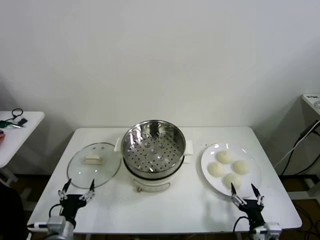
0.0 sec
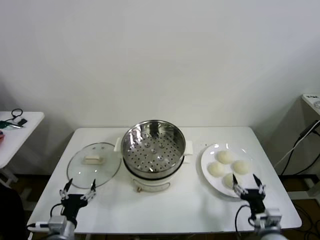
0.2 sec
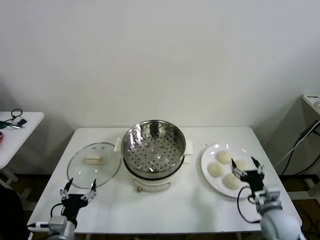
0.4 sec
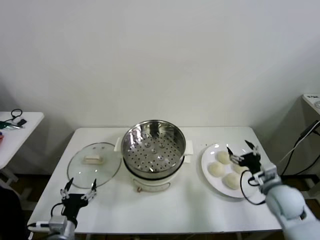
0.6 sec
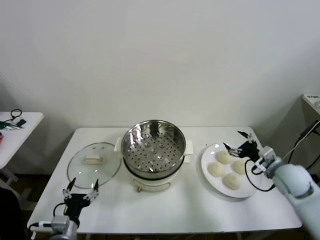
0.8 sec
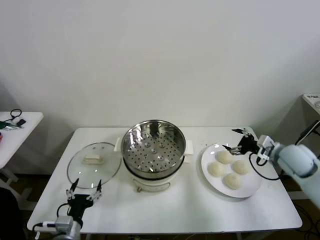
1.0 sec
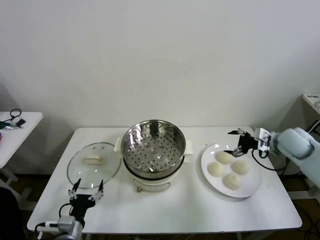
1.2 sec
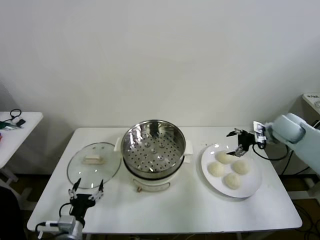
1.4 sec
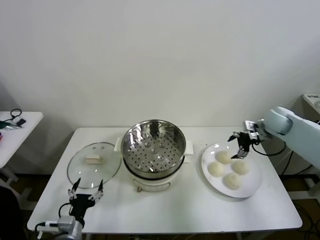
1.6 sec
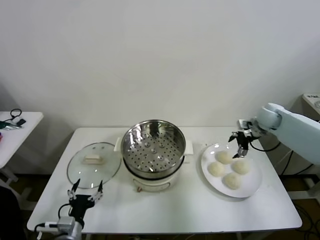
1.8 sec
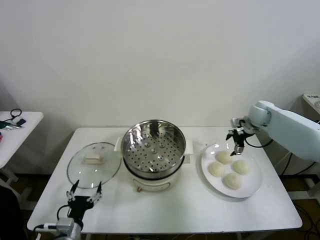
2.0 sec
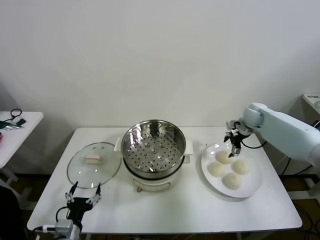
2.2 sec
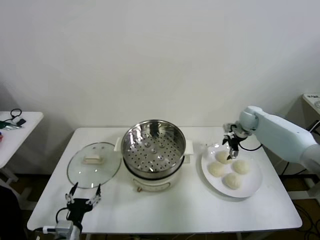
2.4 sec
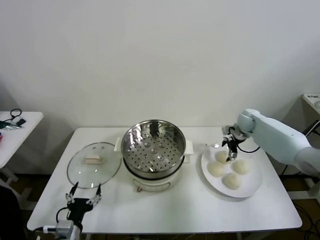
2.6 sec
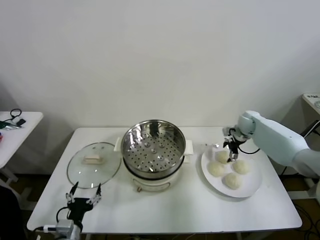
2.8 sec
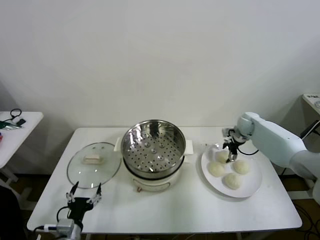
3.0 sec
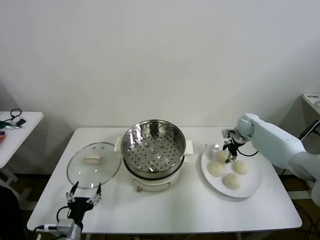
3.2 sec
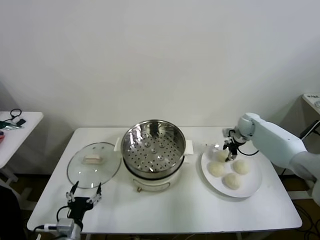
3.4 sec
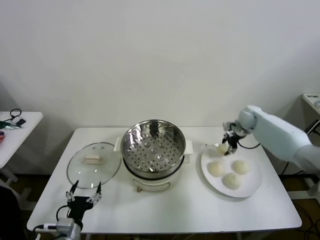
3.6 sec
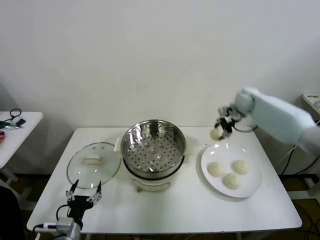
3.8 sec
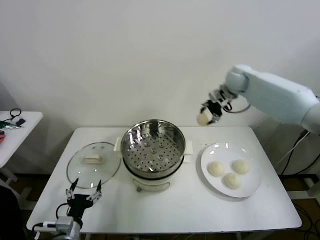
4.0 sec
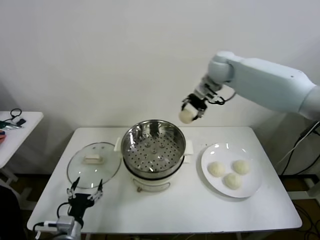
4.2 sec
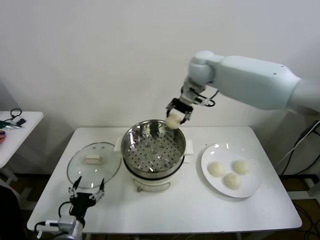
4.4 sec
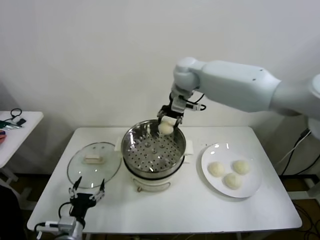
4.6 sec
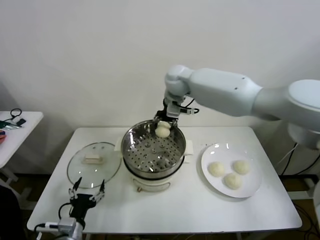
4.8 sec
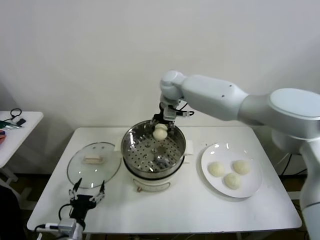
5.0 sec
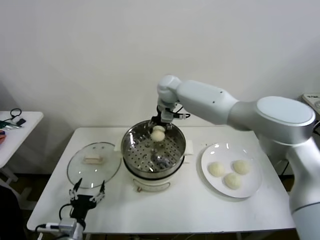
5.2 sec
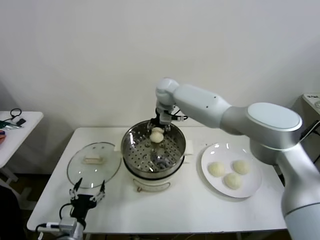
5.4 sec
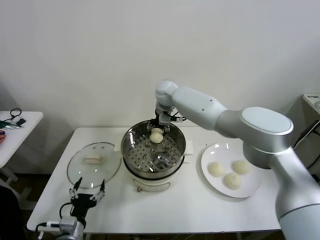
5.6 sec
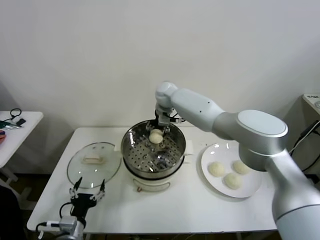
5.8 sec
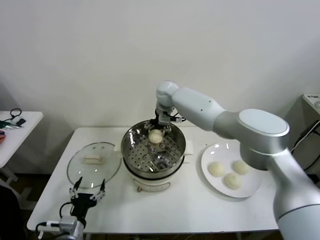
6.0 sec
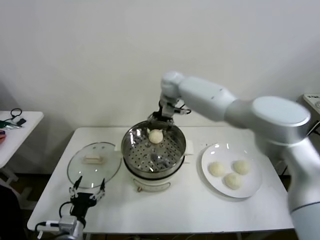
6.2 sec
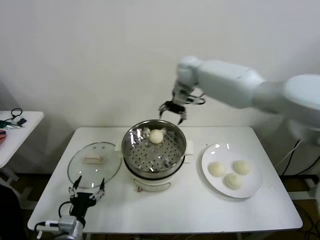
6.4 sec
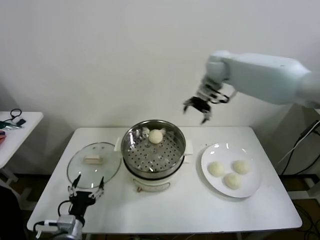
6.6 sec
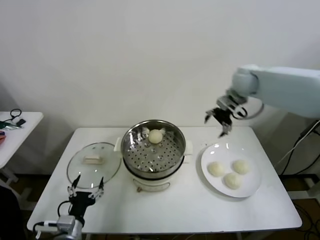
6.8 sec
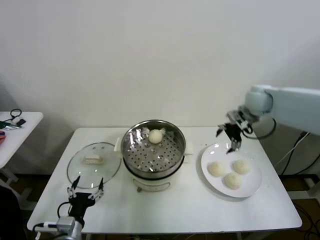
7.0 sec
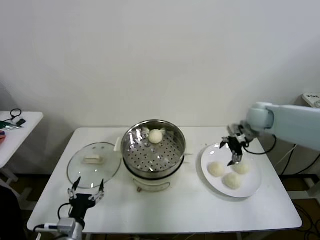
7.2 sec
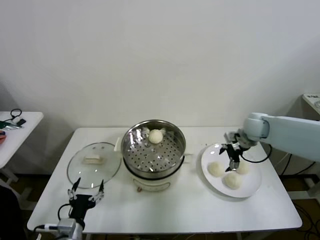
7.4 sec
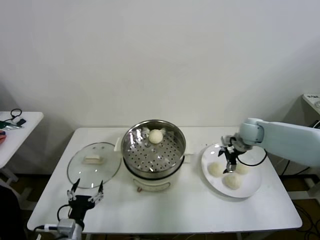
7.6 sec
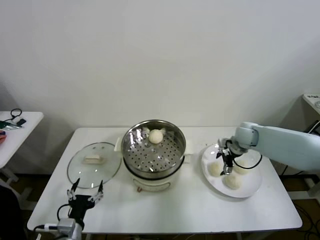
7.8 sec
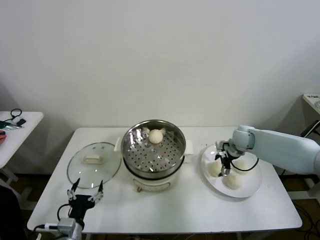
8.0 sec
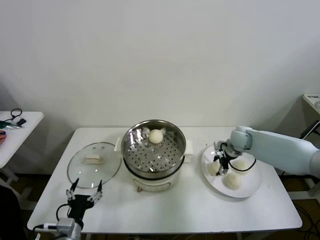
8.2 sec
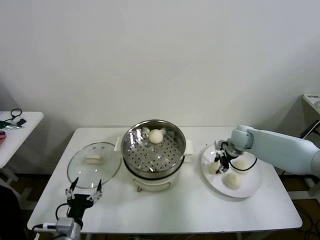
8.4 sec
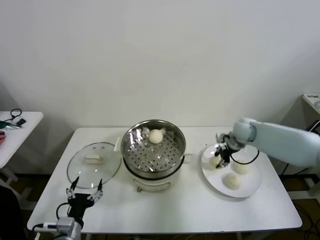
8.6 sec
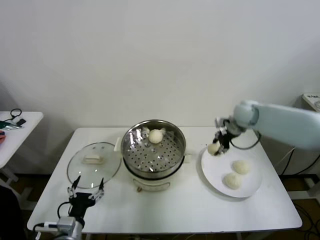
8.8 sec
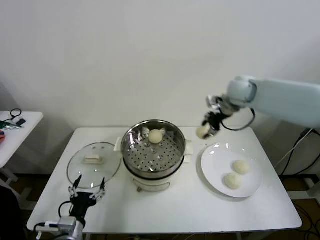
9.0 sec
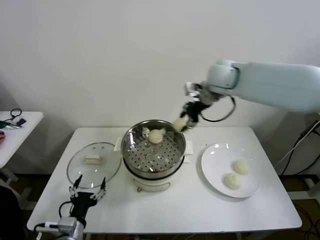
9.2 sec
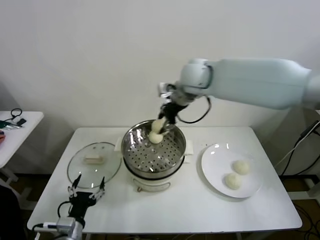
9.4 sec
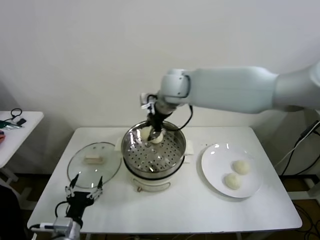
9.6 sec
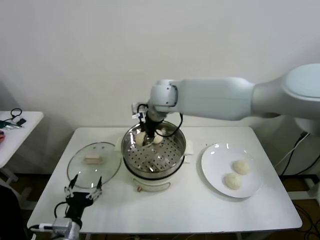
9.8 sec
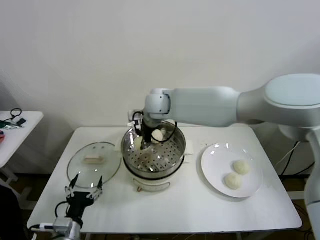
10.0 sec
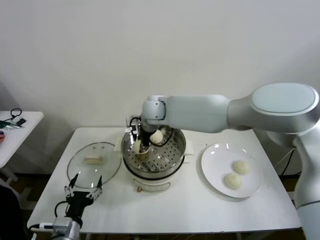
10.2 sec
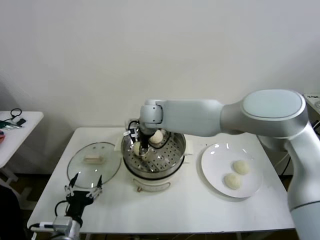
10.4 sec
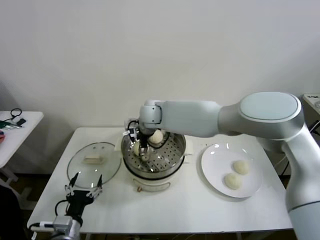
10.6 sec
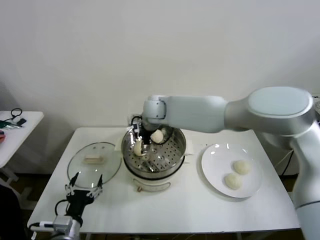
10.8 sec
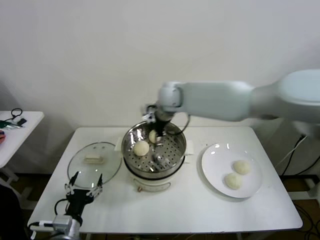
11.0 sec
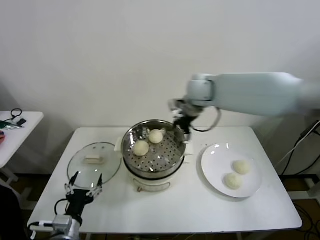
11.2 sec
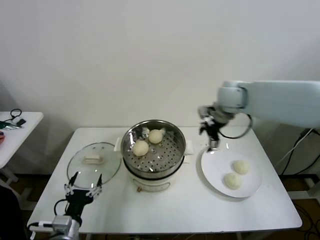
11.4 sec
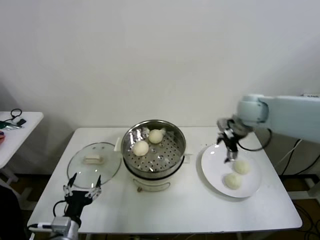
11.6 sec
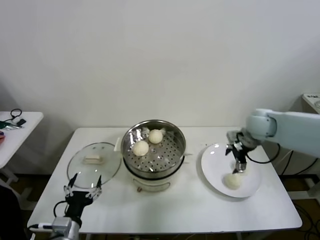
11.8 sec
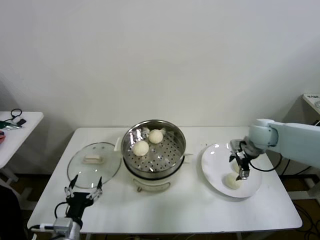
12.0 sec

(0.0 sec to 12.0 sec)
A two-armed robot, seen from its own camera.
Step, 0.0 sec - 3.2 sec: Grasp the baozi in the plate with right gripper.
Step, 3.4 sec - 5.8 sec: Place the baozi on the steamer with right gripper.
Step, 6.0 sec - 8.2 sec: Grasp the baozi in the plate with right gripper.
Step, 8.4 sec - 10.4 sec: Place the baozi on the steamer with right gripper.
1.6 sec - 3.0 sec: The right gripper goes approximately 10 cm downward and forward.
3.0 sec - 4.4 sec: The right gripper travels upward and to the left by roughly 35 cm, and closes up.
4.4 sec - 6.0 sec: The right gripper travels downward, to the left and forward by about 15 cm, and opens up.
6.0 sec - 7.6 sec: The right gripper is displaced to the right by about 30 cm.
7.6 sec - 9.0 sec: The right gripper is displaced upward and to the left by roughly 20 cm, and closes.
9.0 sec - 10.4 sec: The right gripper goes approximately 25 cm to the left.
10.4 sec - 12.0 sec: The right gripper shifts about 40 cm to the right, and opens.

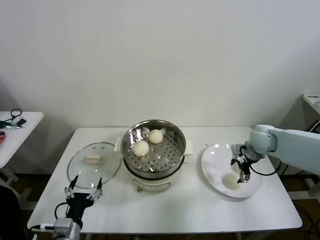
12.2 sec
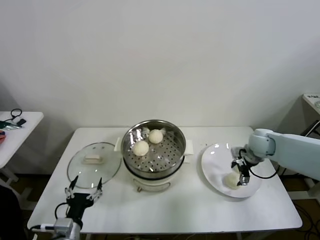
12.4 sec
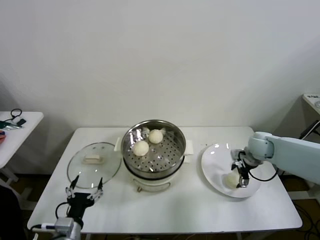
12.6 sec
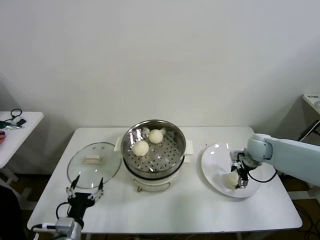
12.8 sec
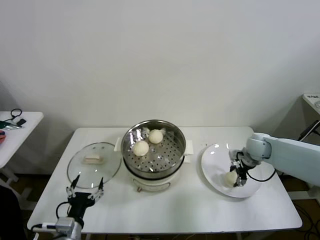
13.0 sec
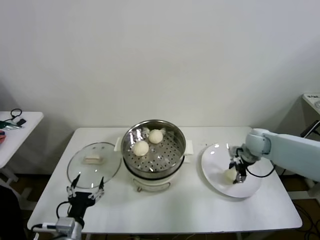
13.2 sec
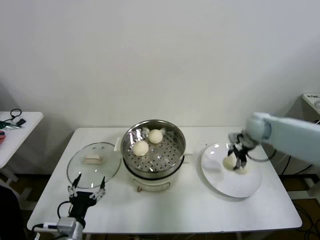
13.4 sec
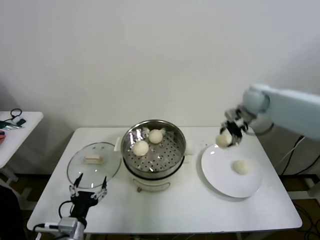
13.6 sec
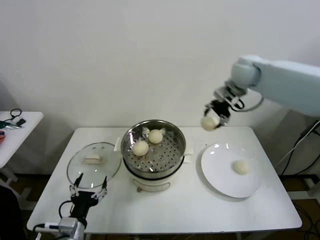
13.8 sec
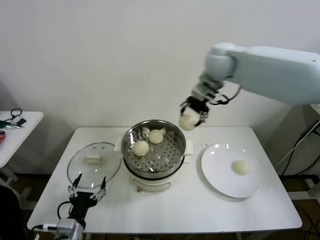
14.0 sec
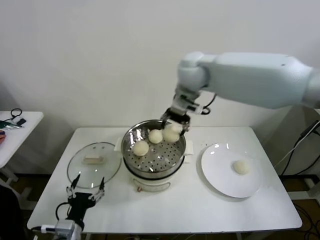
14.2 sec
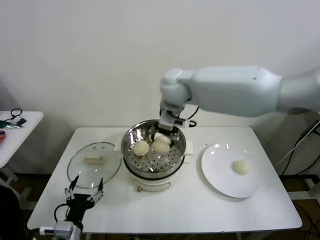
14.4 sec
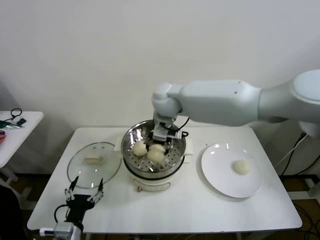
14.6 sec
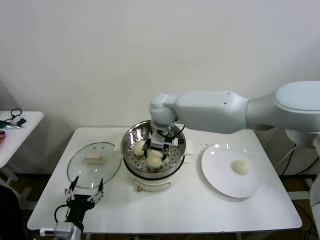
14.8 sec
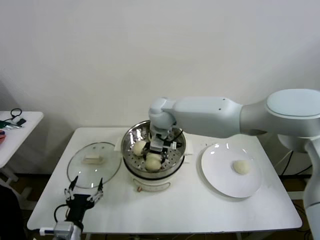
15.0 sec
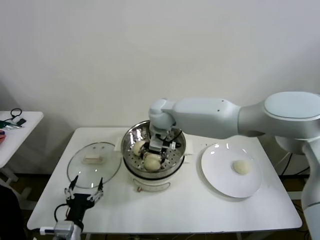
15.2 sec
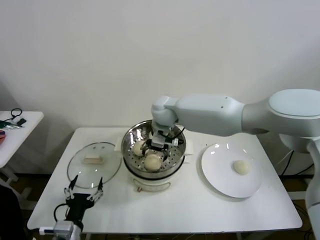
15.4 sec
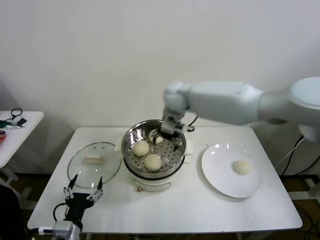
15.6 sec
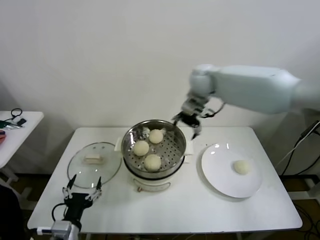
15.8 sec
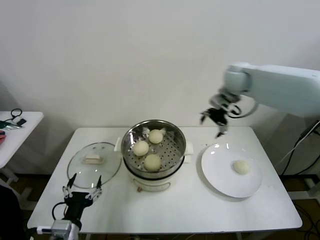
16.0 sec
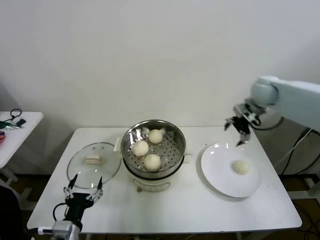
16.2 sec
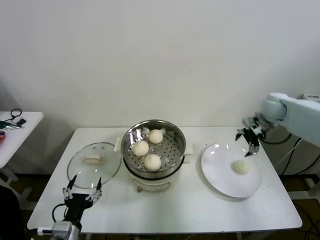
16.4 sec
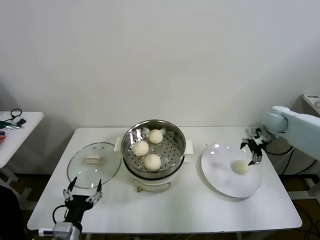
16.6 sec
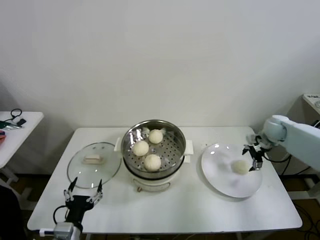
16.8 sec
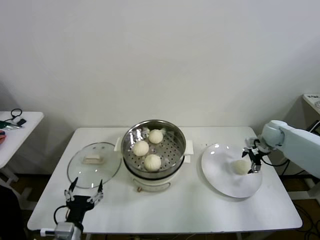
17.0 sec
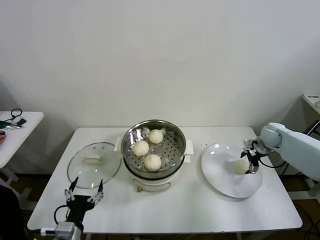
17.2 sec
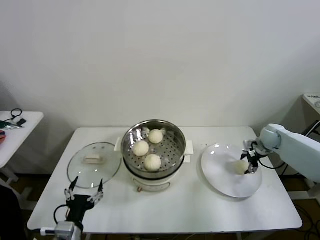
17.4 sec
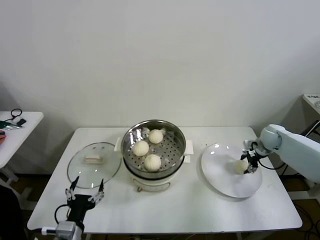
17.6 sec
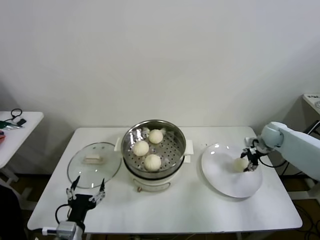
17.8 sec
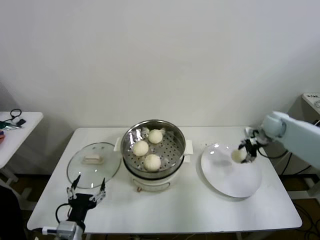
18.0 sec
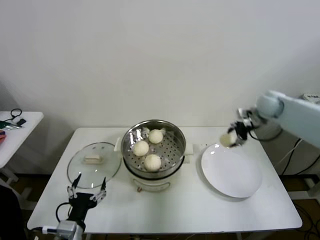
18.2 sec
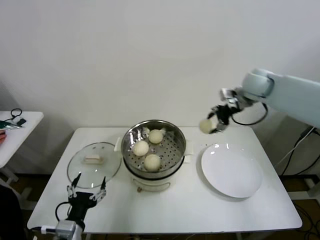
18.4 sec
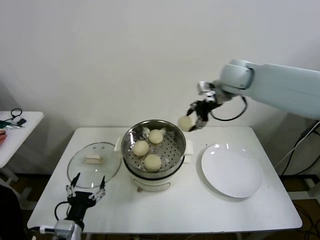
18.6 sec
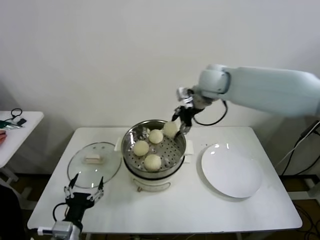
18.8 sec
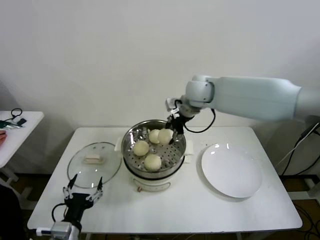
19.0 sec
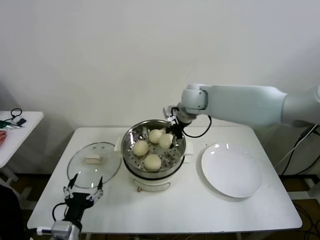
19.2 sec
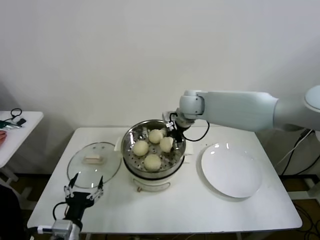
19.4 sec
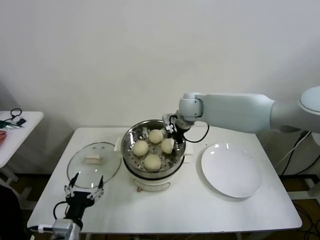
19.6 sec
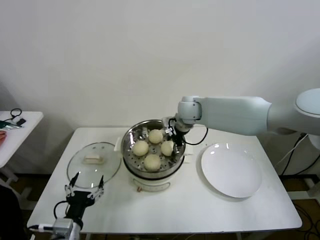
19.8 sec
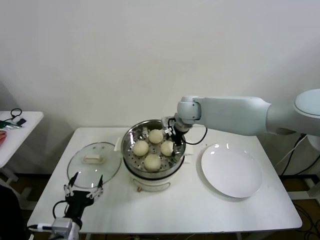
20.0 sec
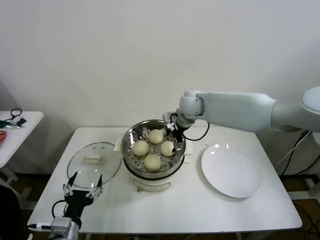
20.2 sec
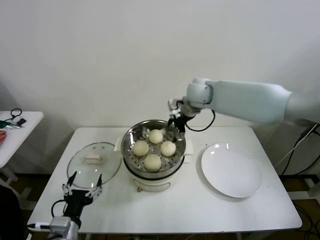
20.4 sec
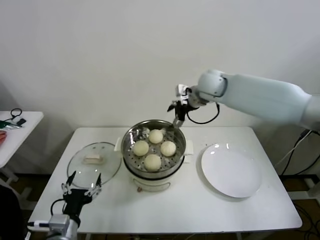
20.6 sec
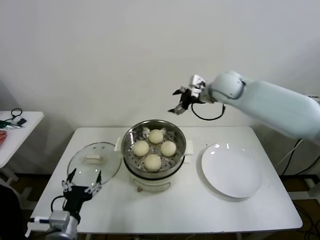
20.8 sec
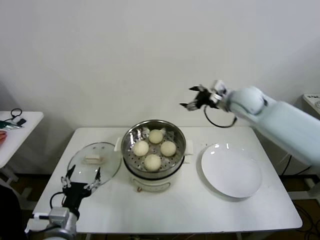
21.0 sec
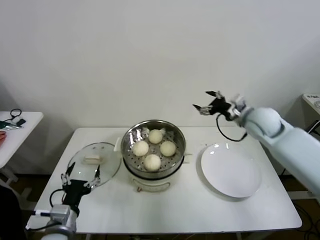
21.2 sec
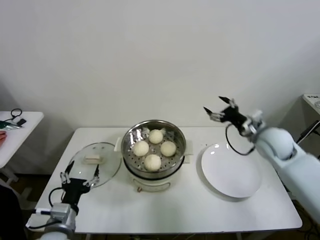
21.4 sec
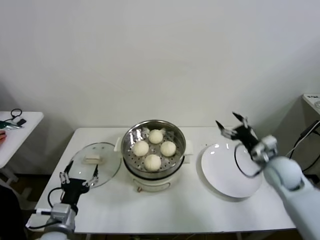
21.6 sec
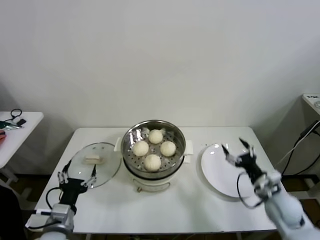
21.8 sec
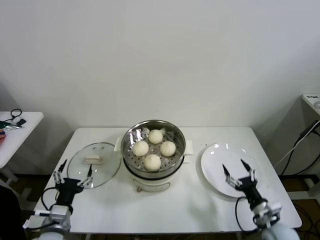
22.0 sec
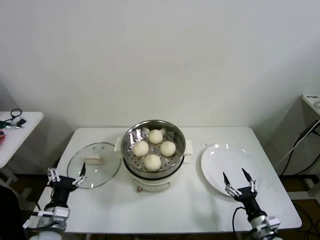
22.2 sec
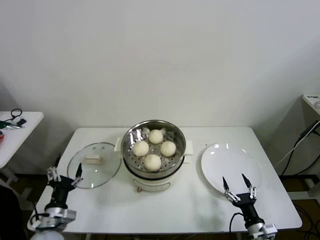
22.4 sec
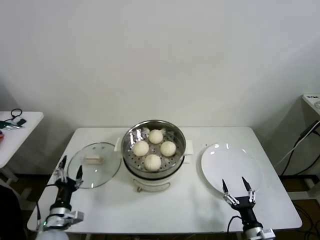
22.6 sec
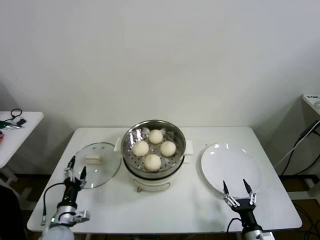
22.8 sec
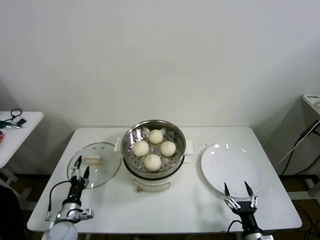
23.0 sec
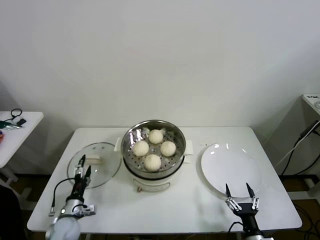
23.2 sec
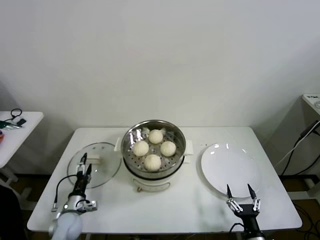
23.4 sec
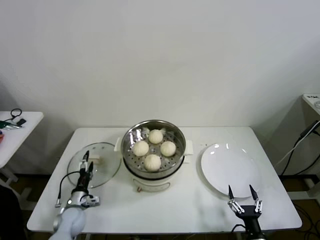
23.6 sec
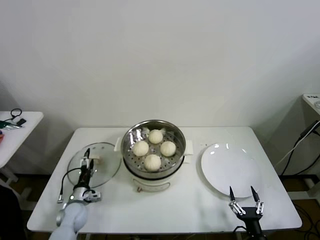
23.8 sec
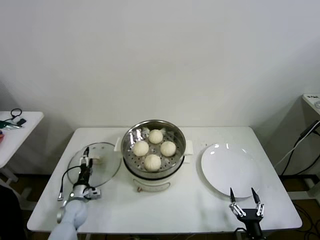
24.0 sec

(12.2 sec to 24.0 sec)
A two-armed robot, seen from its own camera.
Step, 13.0 sec - 15.2 sec: Place the baozi on the steamer with right gripper.
Step, 15.4 sec - 17.4 sec: Grasp the baozi in the plate with right gripper.
Step, 17.6 sec - 20.0 sec: Place the baozi on the steamer with right gripper.
12.2 sec - 13.6 sec: The right gripper heads upward and forward, covering approximately 15 cm, and closes up.
13.6 sec - 15.2 sec: The right gripper is displaced to the left by roughly 30 cm, and opens up.
15.2 sec - 16.6 sec: The right gripper travels to the right by roughly 40 cm.
16.6 sec - 18.2 sec: The right gripper is displaced upward by about 5 cm, and closes.
18.2 sec - 19.6 sec: The right gripper heads to the left, covering about 25 cm.
19.6 sec - 21.0 sec: The right gripper goes approximately 15 cm to the right, and opens its fingers.
21.0 sec - 22.6 sec: The left gripper travels downward and to the left by about 10 cm, while the right gripper travels downward and backward by approximately 50 cm.
22.6 sec - 24.0 sec: The left gripper travels forward and downward by about 15 cm.
